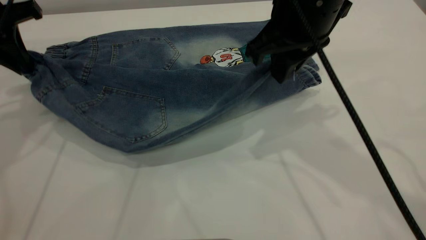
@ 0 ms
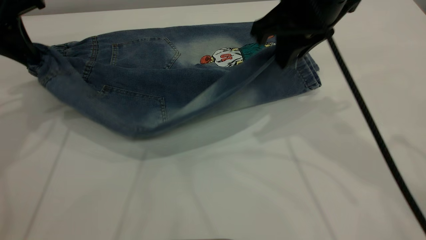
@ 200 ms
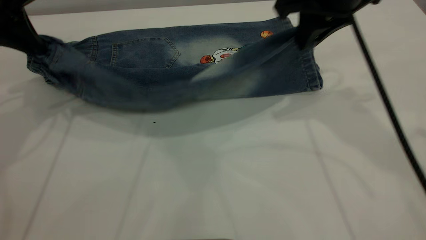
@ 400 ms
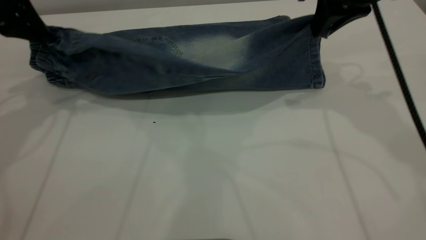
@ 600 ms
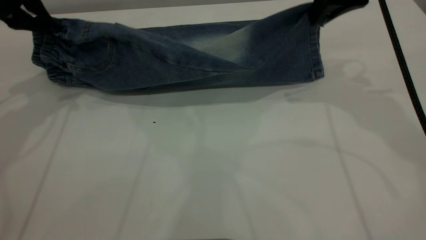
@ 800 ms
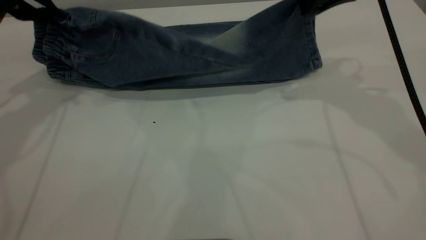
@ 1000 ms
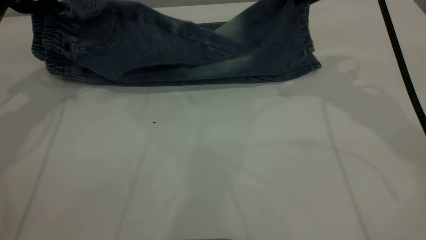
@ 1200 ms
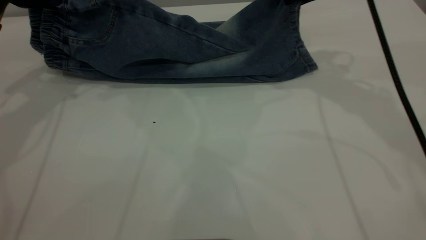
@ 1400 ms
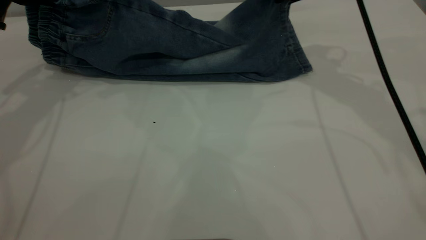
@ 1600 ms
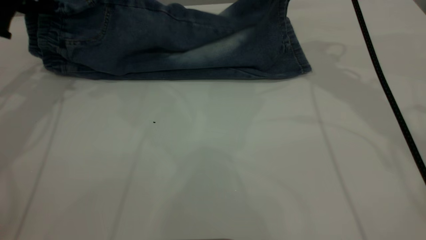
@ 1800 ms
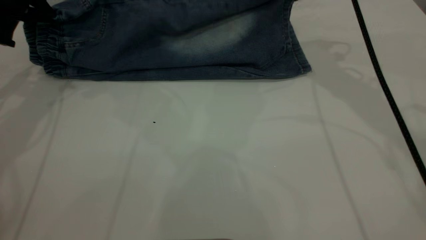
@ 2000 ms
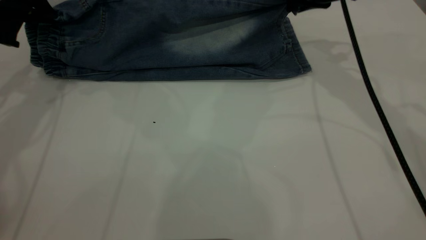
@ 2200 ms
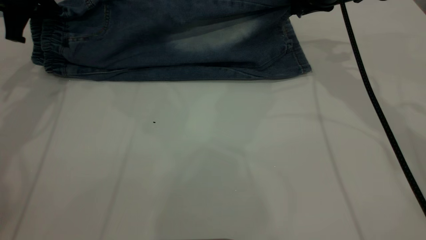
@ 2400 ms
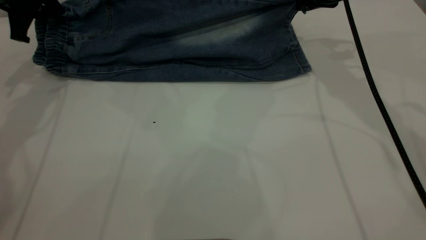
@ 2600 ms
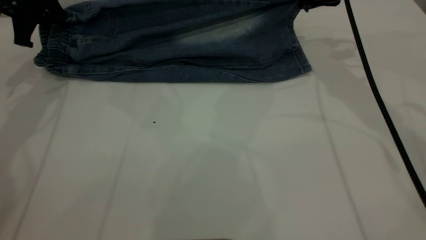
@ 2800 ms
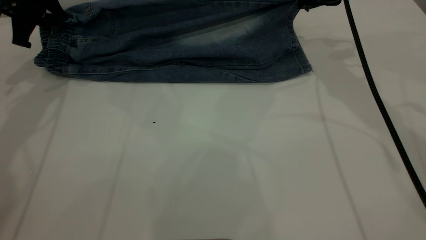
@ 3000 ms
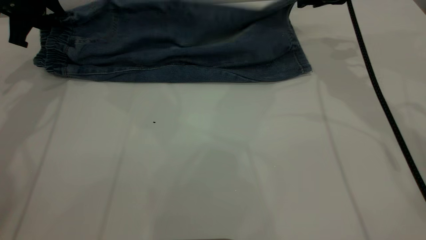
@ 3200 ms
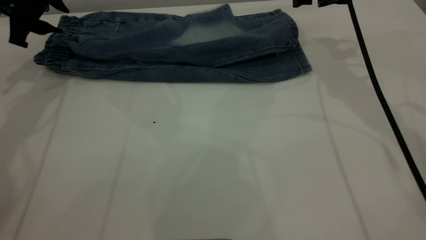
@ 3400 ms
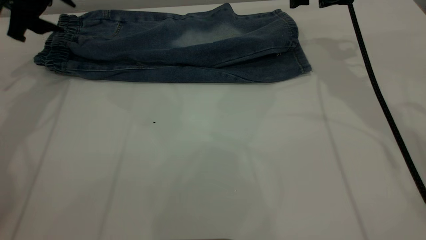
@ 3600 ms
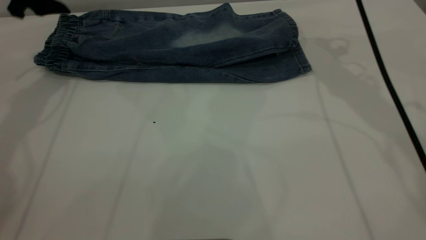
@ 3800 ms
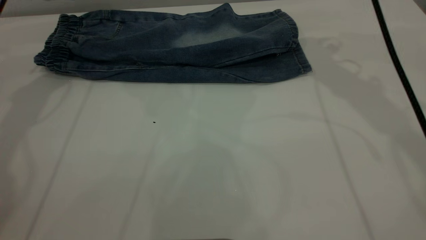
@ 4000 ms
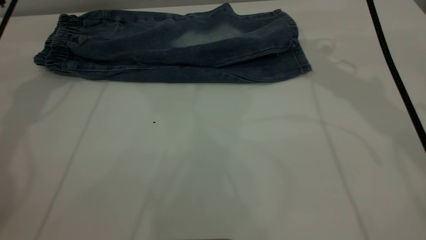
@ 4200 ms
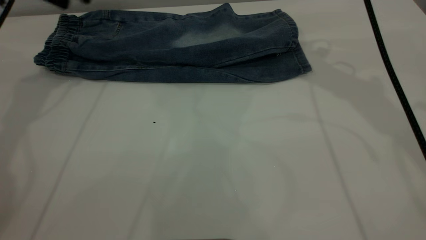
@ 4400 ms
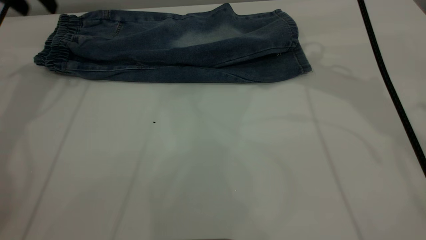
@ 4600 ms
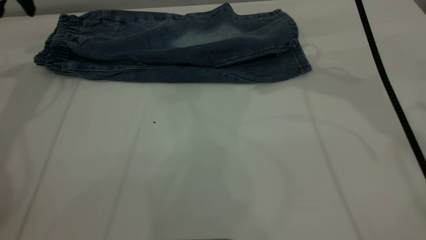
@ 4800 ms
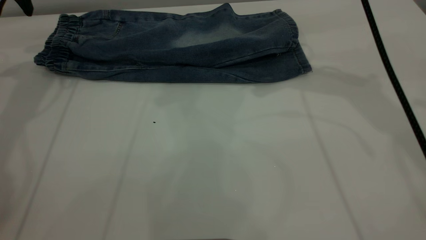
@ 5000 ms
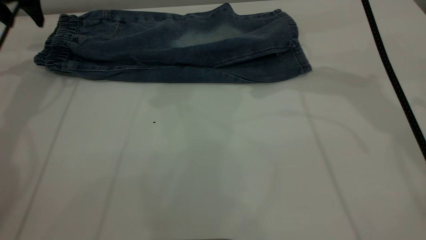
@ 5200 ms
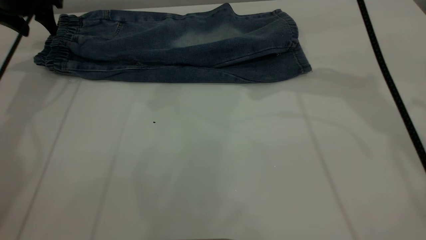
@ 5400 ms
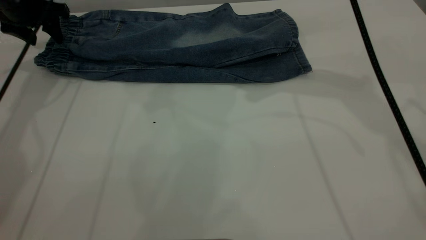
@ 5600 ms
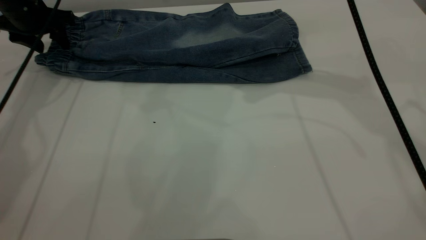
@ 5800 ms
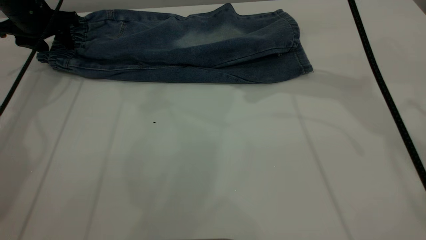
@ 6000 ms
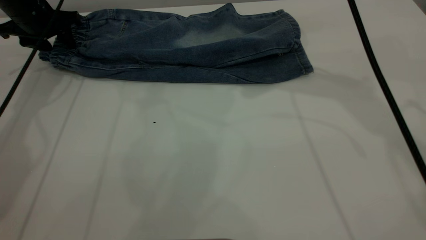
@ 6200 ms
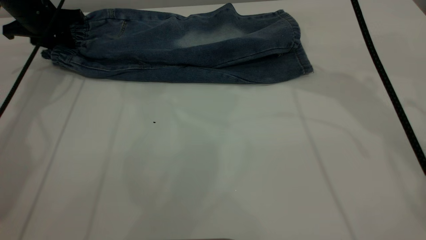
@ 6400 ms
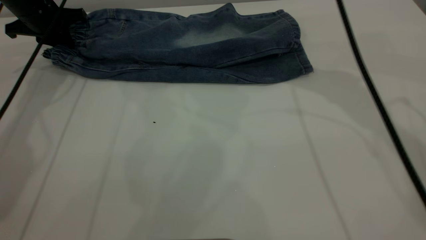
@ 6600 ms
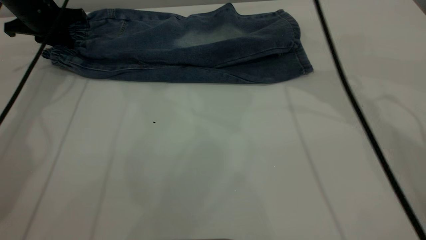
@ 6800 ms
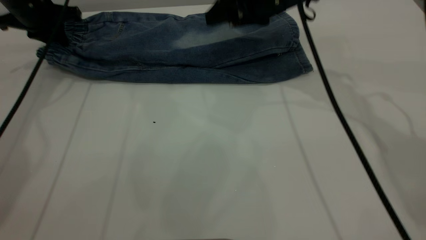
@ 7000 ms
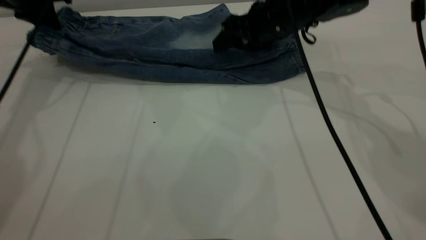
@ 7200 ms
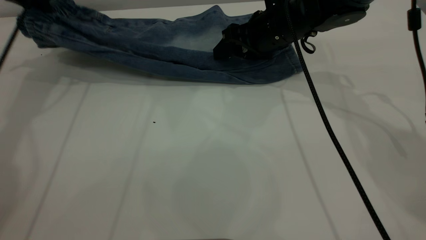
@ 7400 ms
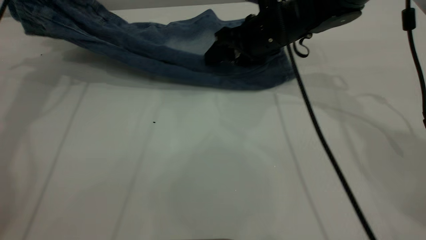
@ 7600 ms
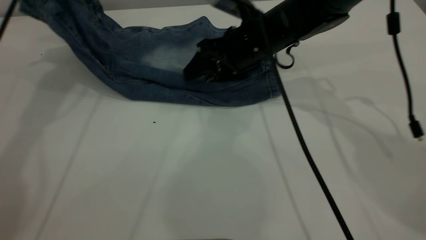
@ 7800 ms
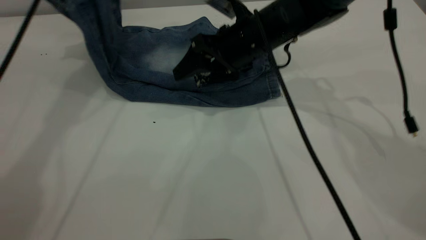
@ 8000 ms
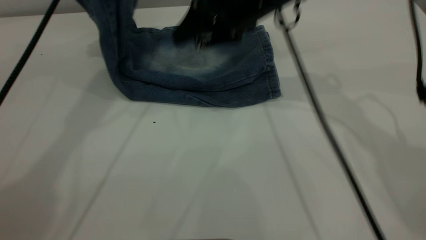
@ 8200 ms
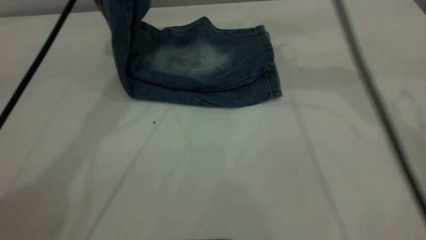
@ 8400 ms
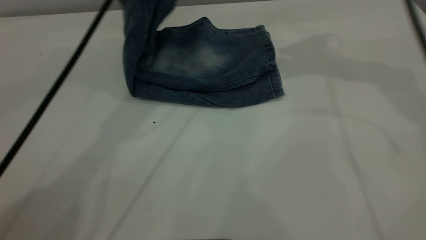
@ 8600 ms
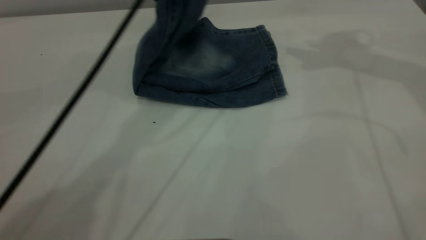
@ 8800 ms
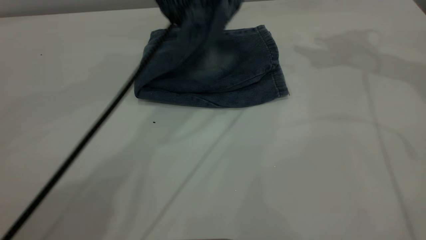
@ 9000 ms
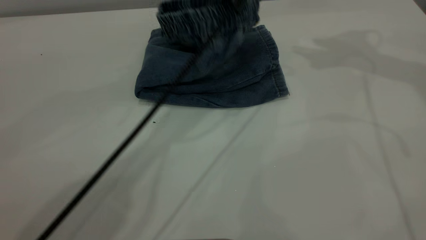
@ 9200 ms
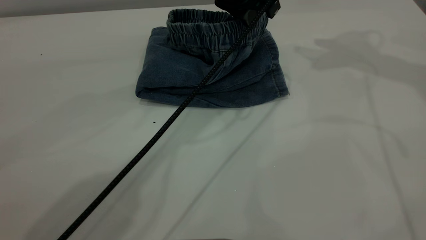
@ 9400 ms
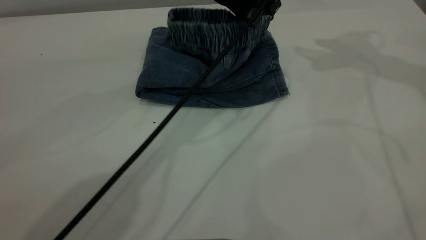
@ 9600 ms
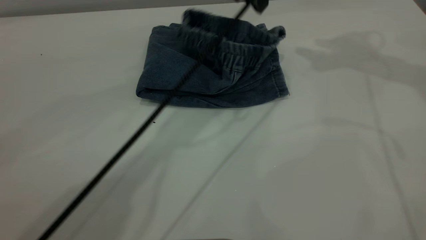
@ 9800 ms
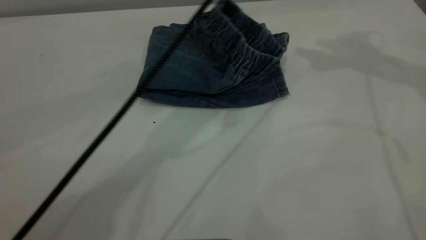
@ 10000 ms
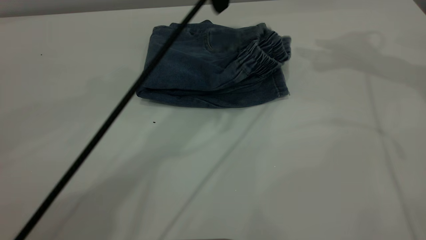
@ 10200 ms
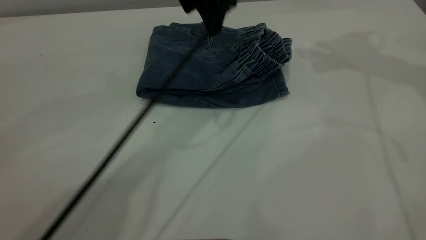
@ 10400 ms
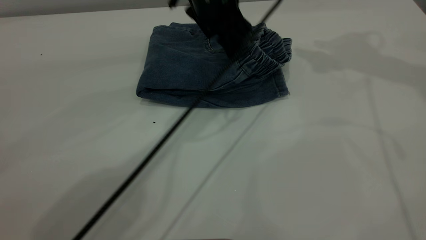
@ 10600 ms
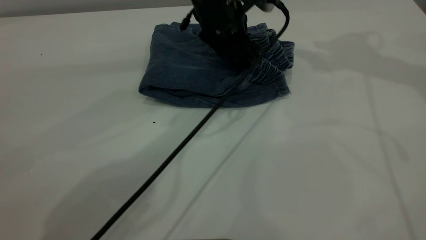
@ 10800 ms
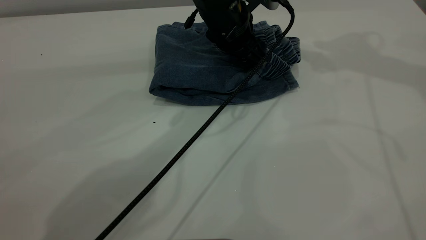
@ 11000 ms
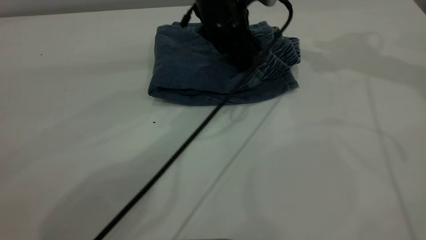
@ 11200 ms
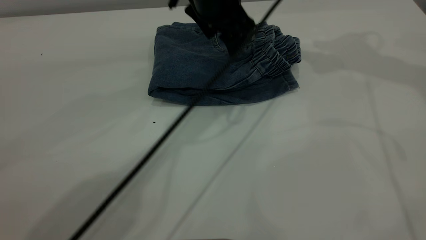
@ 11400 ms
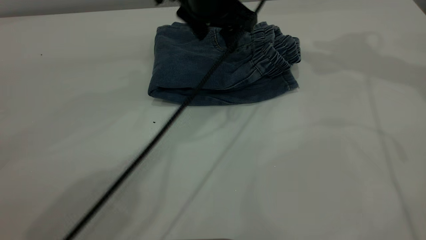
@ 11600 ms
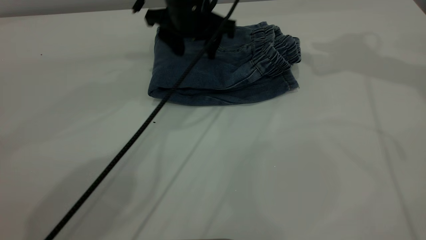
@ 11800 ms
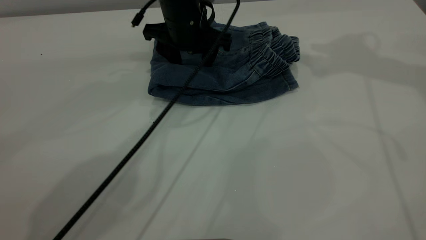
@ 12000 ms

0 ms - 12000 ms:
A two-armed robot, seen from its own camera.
Step, 0 ms - 3800 ms: Fold the bottom of the pants upward.
Step, 4000 ms - 10200 ms: Fold the pants from left to right.
0 ms - 1600 ms: The right gripper is displaced forward and to the right by roughly 15 cm.
1600 ms - 3000 ms: The left gripper shifts approximately 5 cm downward.
3000 ms - 4400 ms: The grippers both shift upward by approximately 5 cm. The left gripper opens. Meanwhile the right gripper opens its fingers.
4400 ms - 6000 ms: The left gripper is displaced downward by some 10 cm.
6000 ms - 7600 ms: The right gripper is displaced downward by about 15 cm, while the left gripper goes some 15 cm upward, and closes.
7600 ms - 9000 ms: The right gripper heads upward and to the right, covering about 25 cm; the left gripper is displaced to the right by approximately 30 cm.
9000 ms - 10400 ms: The left gripper swings up and down, some 10 cm each way, with 2 reversals, and opens up.
10400 ms - 12000 ms: The left gripper swings up and down, about 10 cm each way, with 2 reversals.

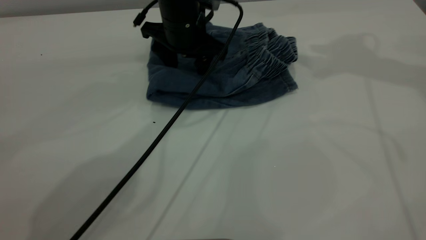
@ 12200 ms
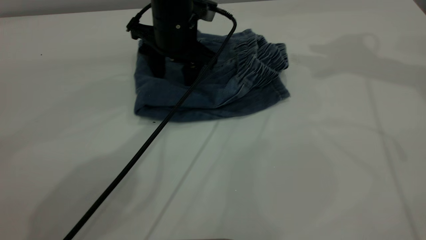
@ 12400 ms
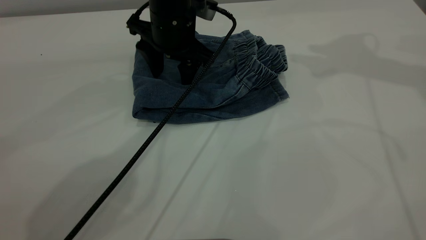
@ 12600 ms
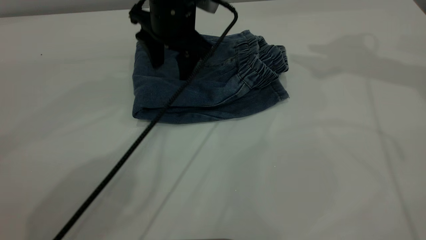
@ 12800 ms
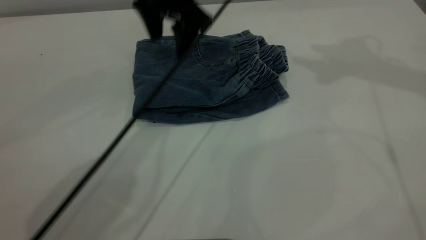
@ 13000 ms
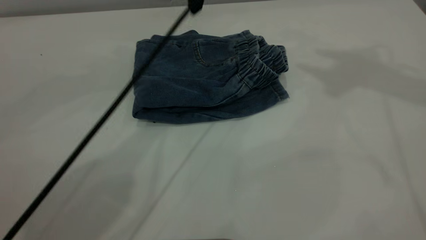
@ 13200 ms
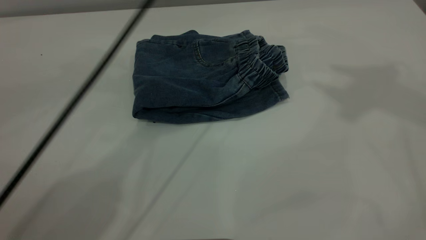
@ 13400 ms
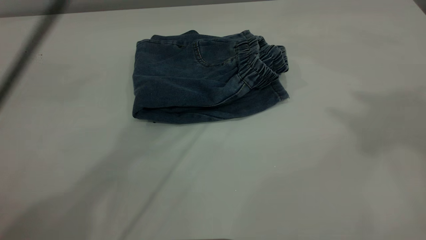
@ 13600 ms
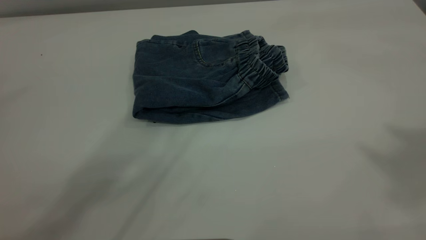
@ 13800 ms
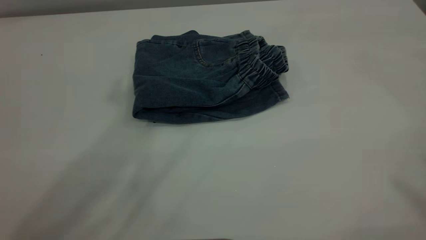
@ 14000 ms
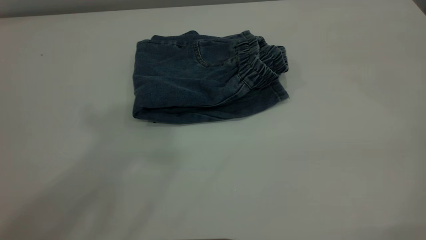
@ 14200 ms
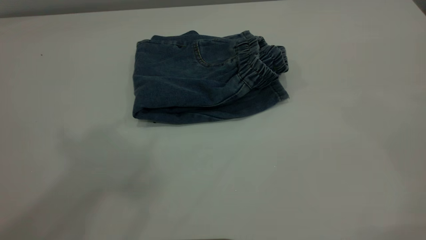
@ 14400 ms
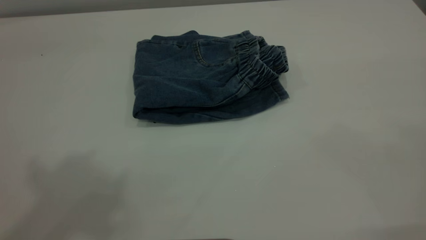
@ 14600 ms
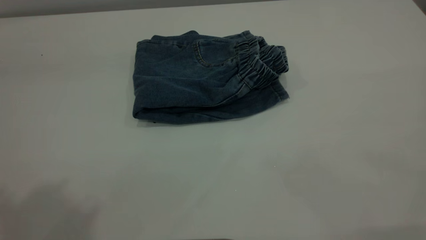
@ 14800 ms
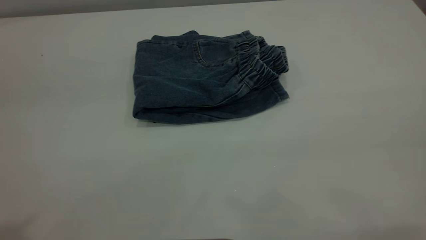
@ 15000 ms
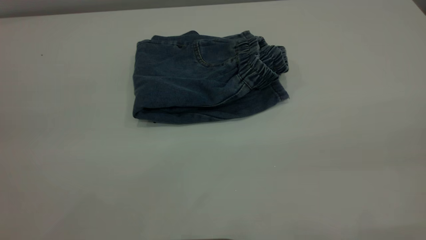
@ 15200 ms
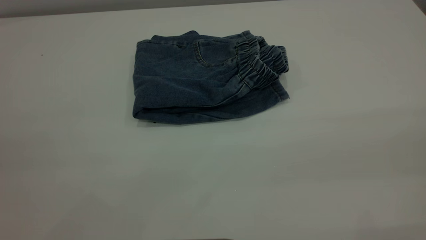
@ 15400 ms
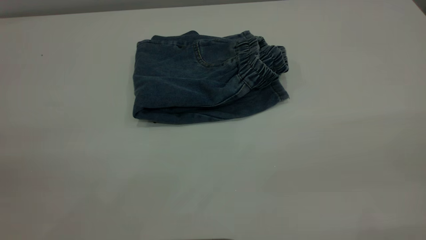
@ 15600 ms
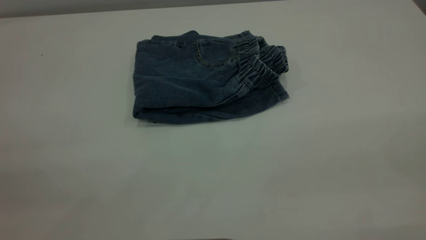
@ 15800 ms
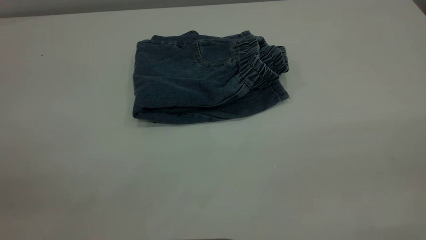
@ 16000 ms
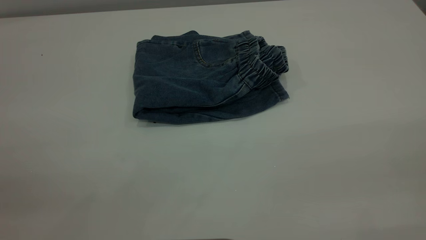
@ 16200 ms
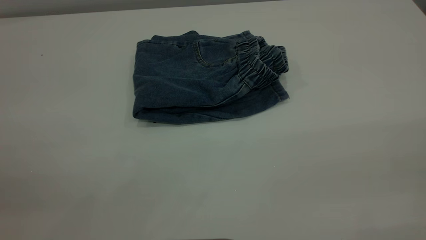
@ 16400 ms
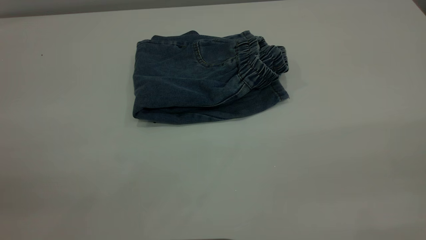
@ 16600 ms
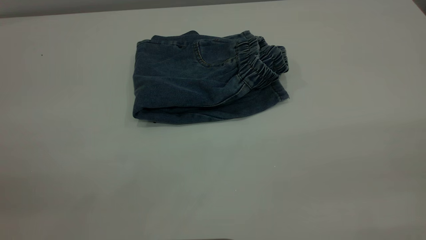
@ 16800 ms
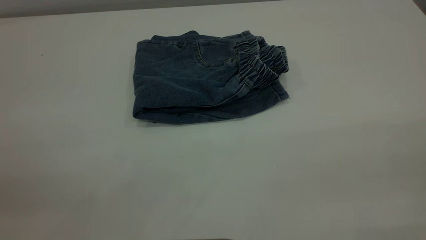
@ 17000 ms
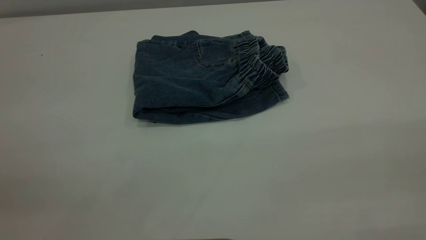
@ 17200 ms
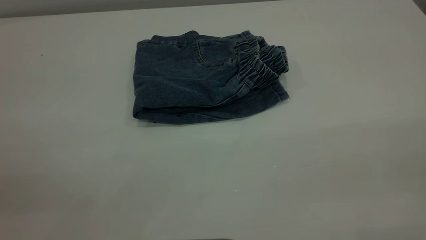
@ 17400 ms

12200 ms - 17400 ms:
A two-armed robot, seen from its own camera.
12200 ms - 14000 ms: The right gripper shifts approximately 40 cm backward and upward; the left gripper moves upward, roughly 50 cm.
